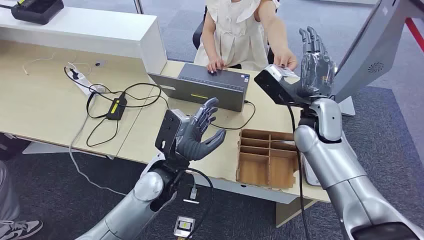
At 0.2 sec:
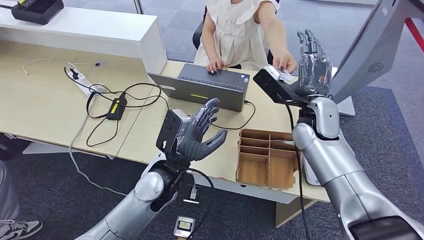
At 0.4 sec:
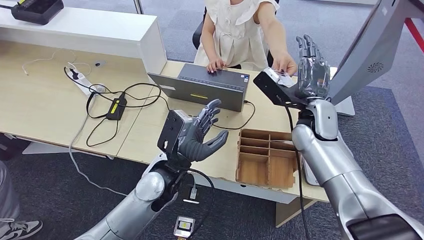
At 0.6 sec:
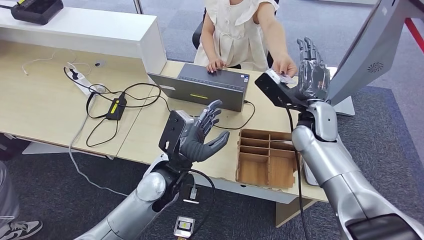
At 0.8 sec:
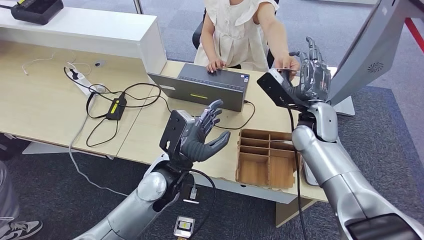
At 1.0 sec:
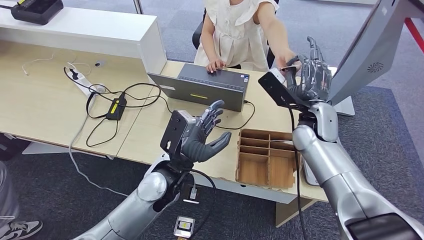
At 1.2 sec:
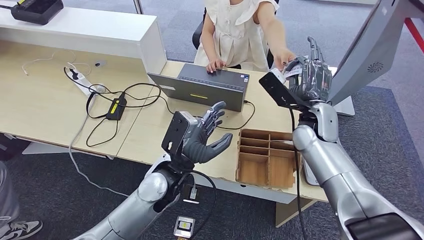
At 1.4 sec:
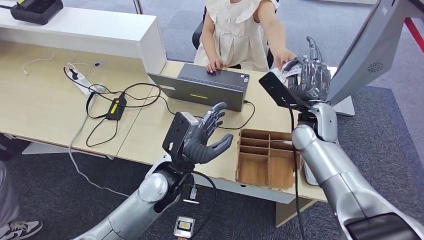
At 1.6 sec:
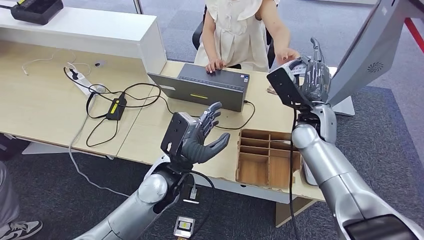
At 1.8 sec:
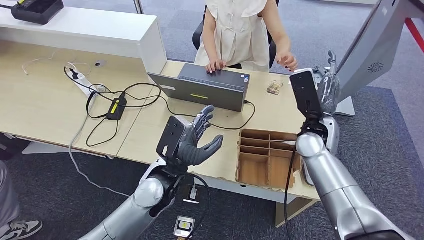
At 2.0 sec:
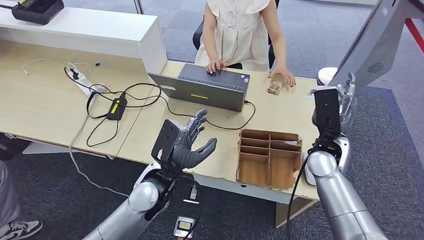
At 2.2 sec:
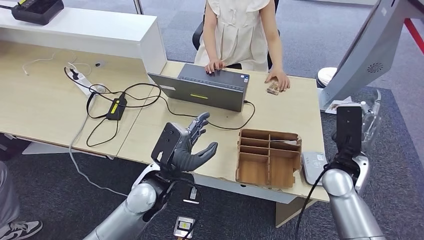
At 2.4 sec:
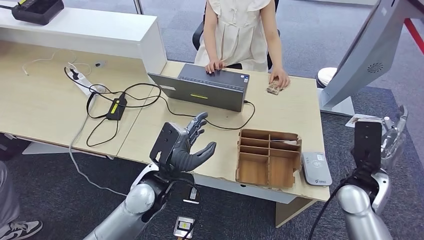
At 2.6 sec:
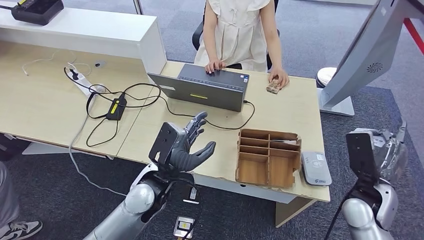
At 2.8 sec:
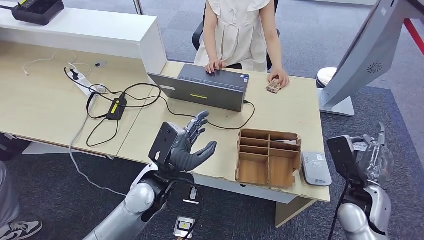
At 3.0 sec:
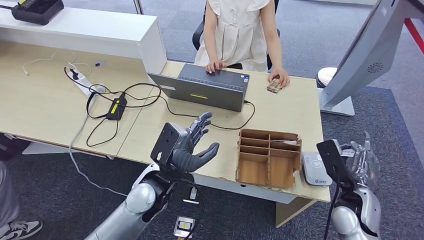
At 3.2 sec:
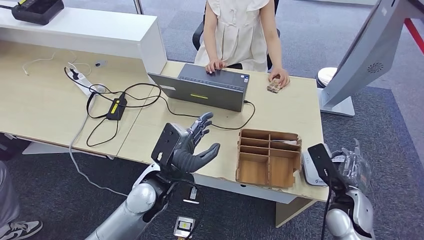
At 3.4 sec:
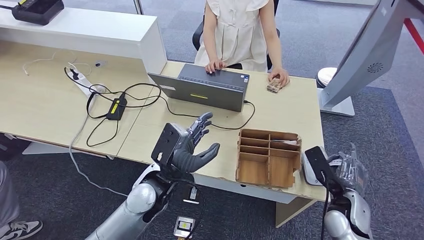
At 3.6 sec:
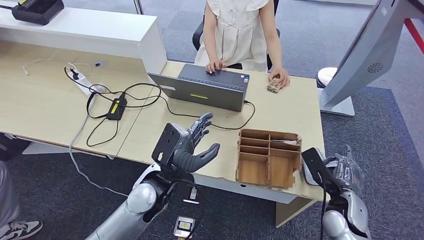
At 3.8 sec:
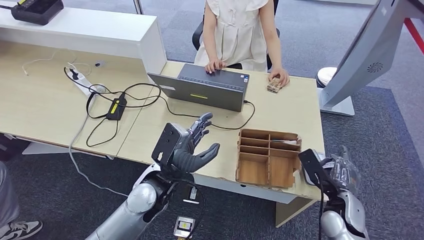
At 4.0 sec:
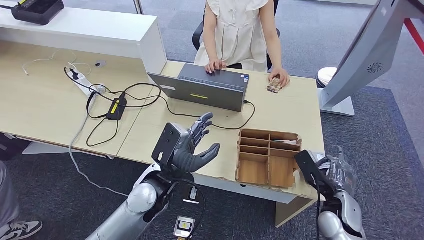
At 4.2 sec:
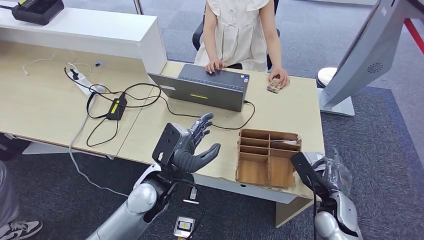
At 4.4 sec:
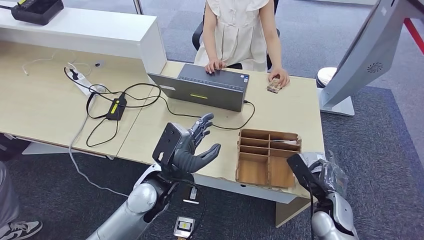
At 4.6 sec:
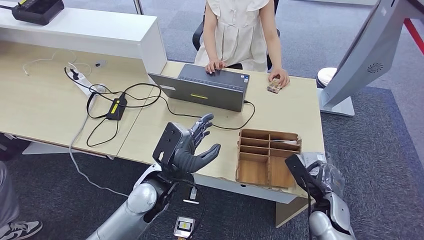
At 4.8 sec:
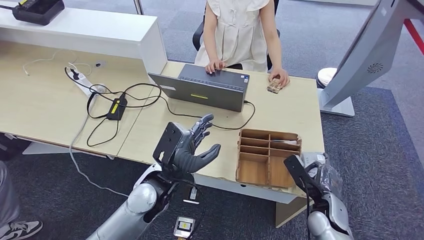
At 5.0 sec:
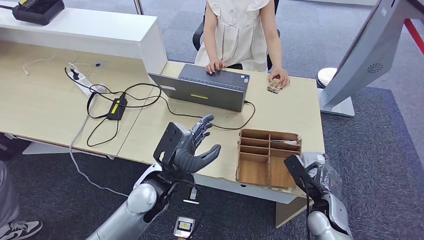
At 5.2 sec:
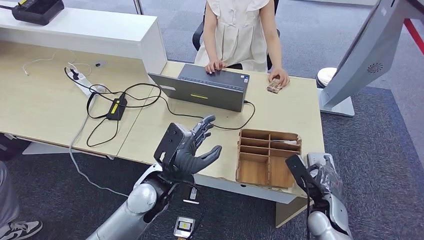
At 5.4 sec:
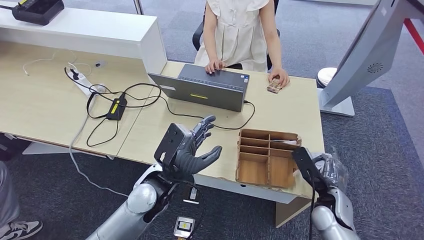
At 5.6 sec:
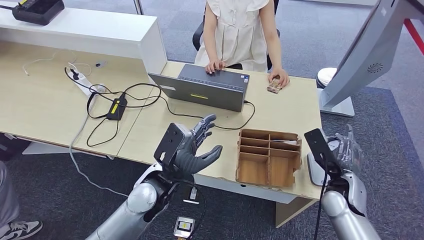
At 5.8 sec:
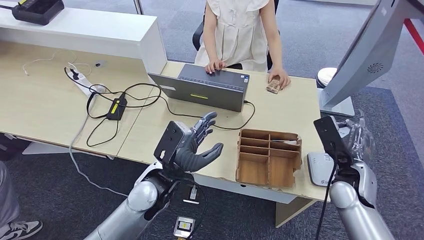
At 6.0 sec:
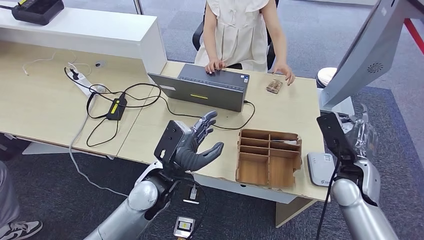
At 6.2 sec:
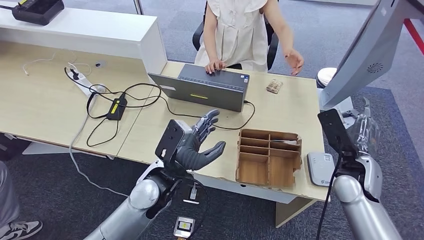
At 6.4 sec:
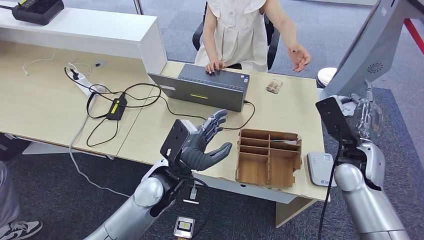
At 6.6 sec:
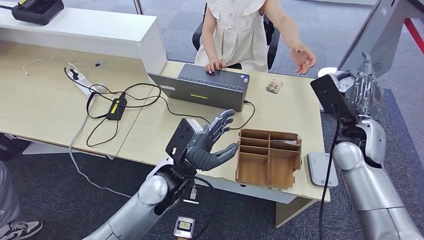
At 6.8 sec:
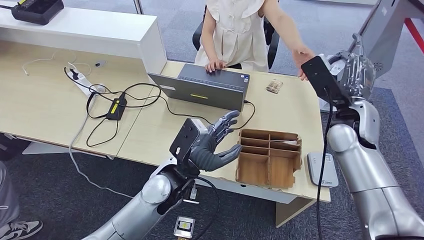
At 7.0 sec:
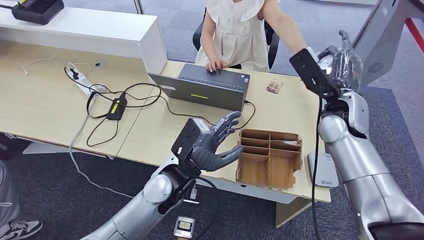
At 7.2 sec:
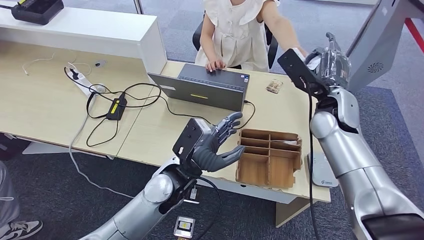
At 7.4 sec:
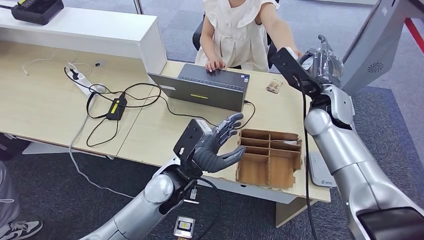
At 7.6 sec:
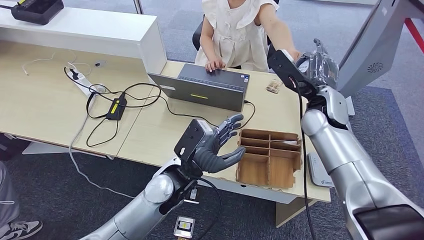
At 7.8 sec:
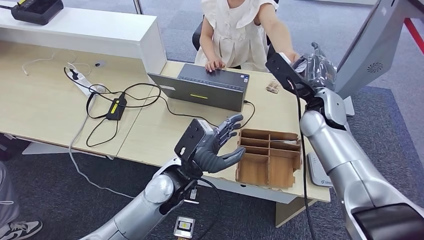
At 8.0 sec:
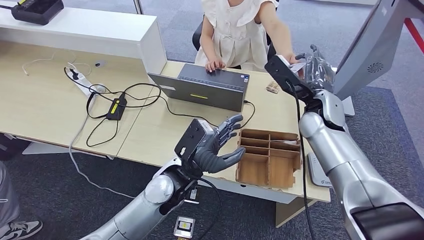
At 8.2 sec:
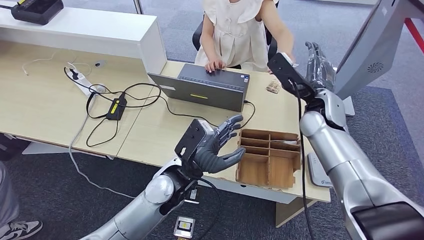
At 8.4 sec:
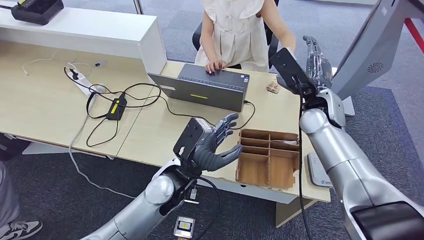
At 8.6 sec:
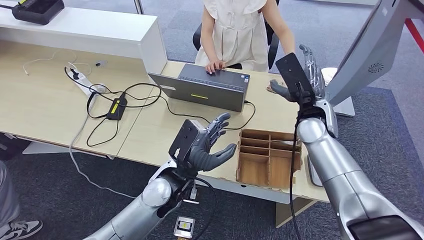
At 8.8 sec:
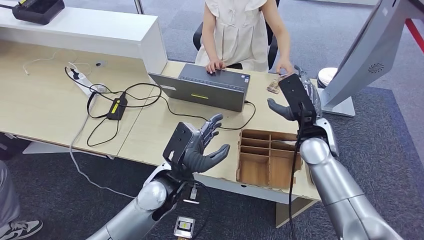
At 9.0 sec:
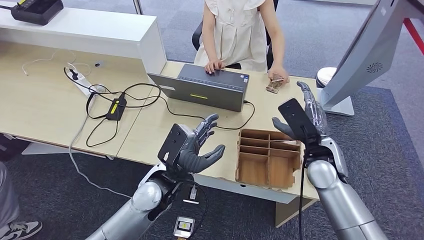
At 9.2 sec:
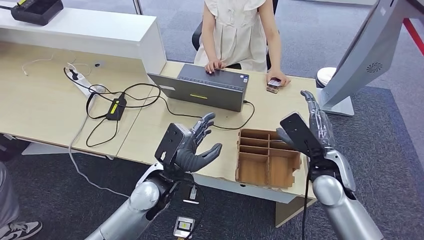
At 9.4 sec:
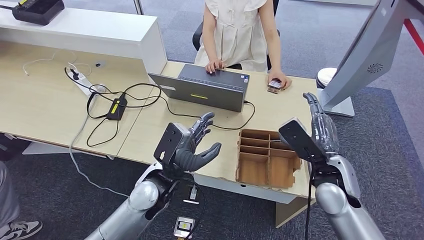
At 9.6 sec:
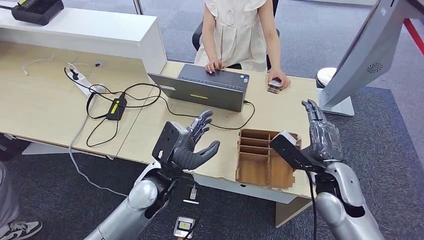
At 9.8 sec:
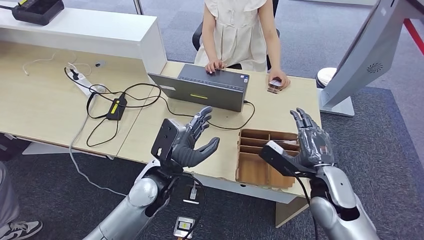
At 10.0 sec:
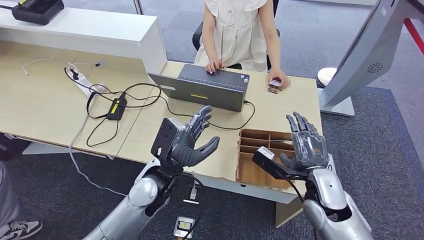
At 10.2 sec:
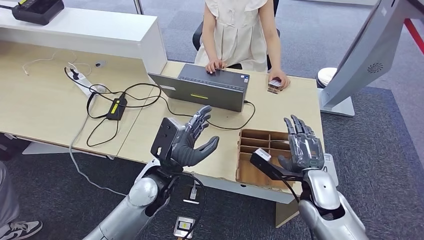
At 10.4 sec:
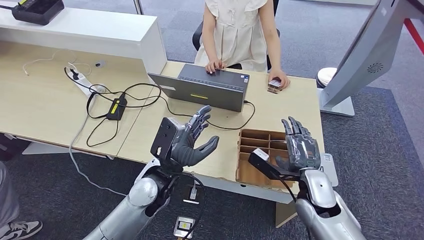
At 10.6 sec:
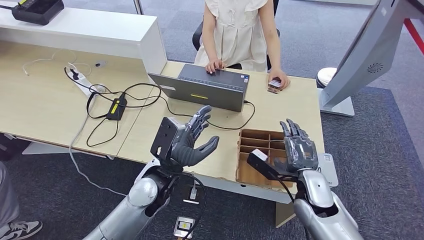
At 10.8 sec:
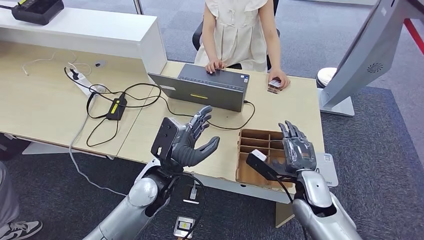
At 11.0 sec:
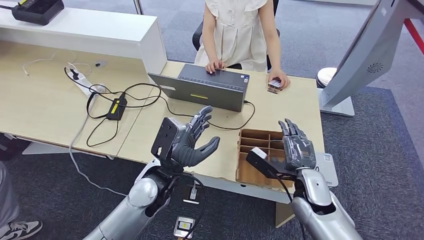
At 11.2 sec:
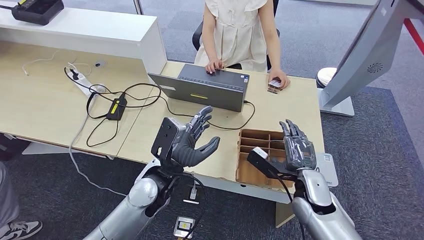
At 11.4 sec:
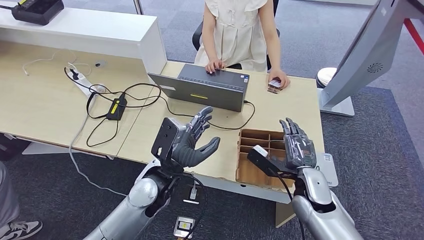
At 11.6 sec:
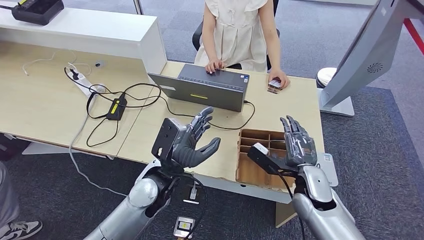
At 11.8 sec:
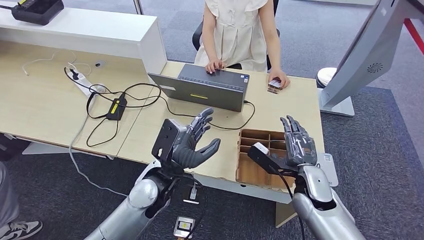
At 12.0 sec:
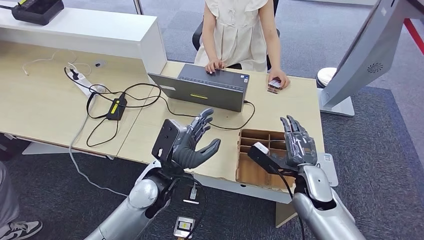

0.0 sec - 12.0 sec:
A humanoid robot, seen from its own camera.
Step, 0.0 sec - 1.8 sec: Take the ID card from the person's hand.
Step, 2.0 sec - 5.0 sec: Place the ID card on the card reader.
Step, 5.2 sec - 9.0 sec: Hand the ID card to the person.
1.6 sec - 3.0 sec: The right hand heads downward, backward and to the right, covering approximately 20 cm.
3.0 sec - 4.4 sec: The right hand heads downward, covering about 5 cm.
4.4 sec - 6.0 sec: The right hand shifts roughly 10 cm upward and forward.
6.0 sec - 7.6 sec: The right hand shifts some 20 cm upward, to the left and forward.
7.6 sec - 9.0 sec: The right hand travels downward and backward by some 10 cm.
9.0 sec - 10.4 sec: The right hand heads downward and backward, covering roughly 10 cm.
10.4 sec - 12.0 sec: The hands move only a little.

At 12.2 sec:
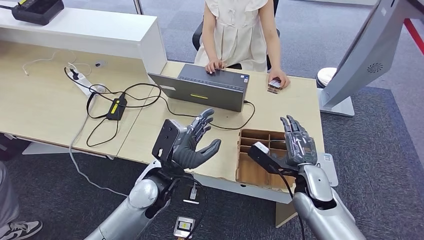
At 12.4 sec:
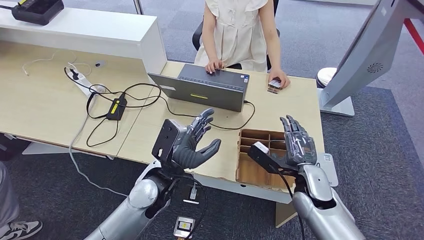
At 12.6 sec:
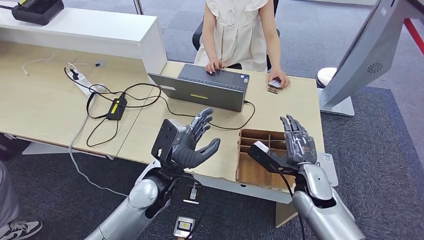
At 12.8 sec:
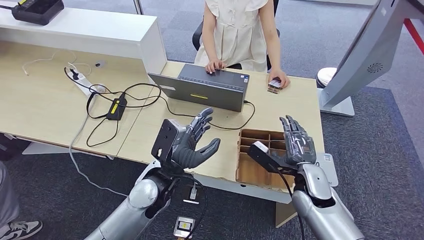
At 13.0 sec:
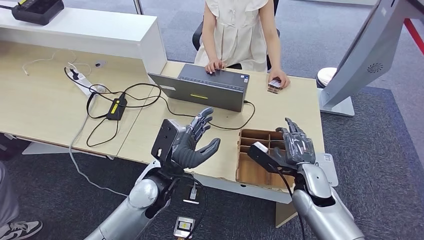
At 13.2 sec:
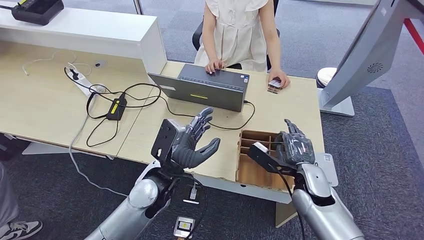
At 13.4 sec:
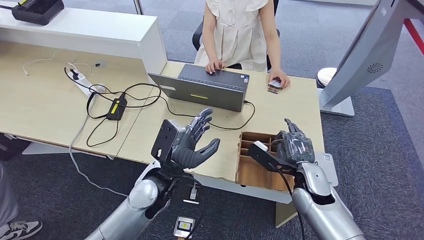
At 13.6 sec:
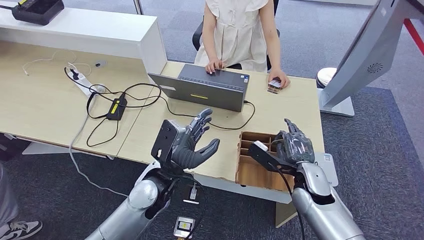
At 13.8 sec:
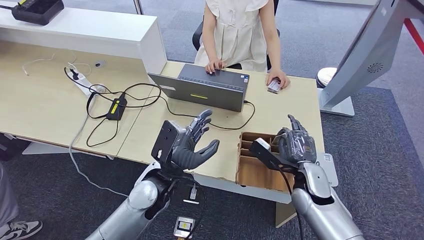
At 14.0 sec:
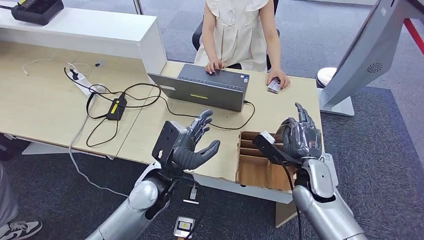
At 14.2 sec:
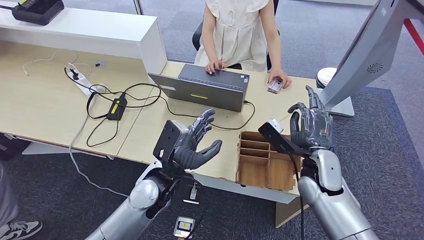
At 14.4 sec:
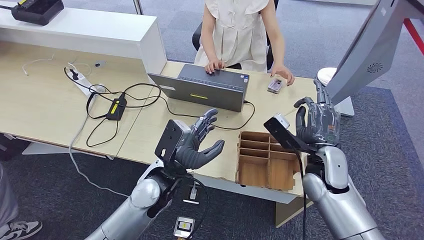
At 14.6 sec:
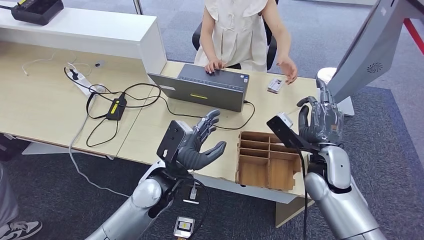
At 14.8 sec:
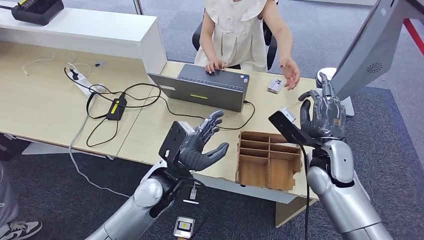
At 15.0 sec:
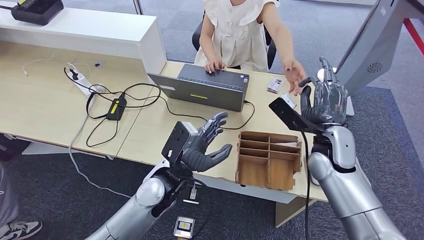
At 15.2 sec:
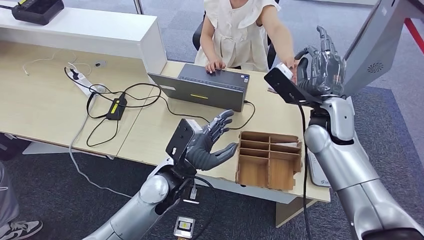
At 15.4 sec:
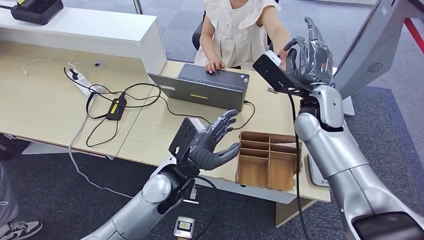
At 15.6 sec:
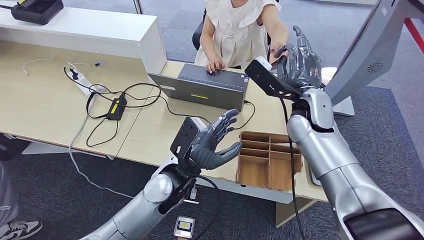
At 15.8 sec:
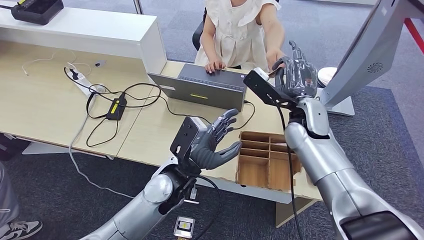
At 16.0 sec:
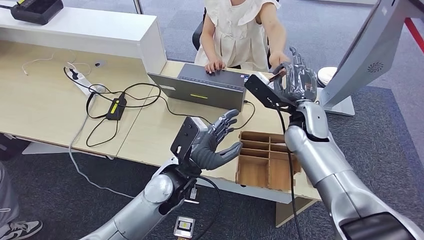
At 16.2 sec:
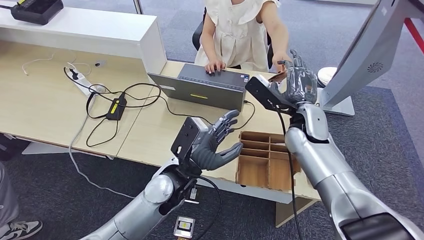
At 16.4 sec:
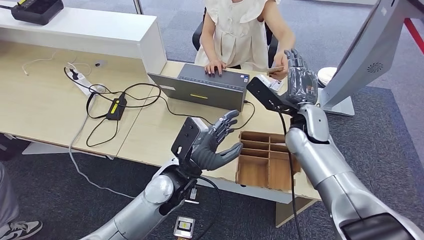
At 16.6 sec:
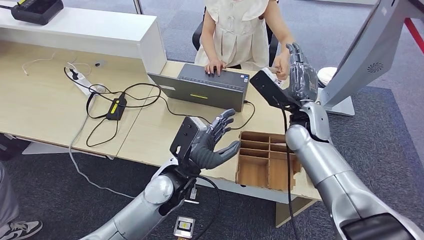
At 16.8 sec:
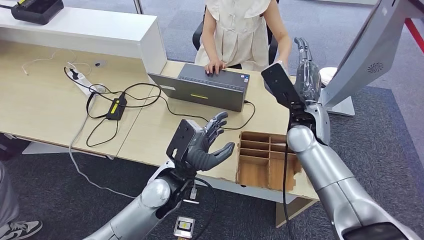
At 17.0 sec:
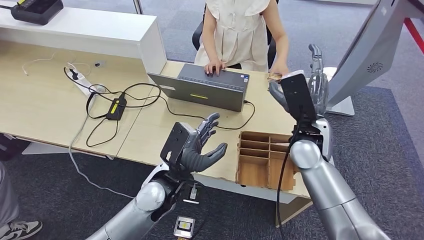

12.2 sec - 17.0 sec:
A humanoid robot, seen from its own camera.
Step, 13.0 sec - 14.4 sec: Pick up the room key from the key card box.
Step, 14.6 sec - 17.0 sec: Hand the room key to the person.
12.2 sec - 13.8 sec: The hands make only small movements.
15.4 sec - 17.0 sec: The right hand shifts approximately 5 cm downward.
